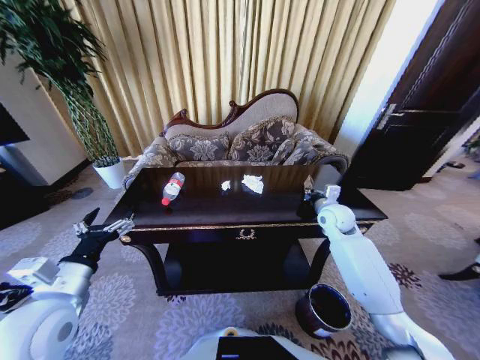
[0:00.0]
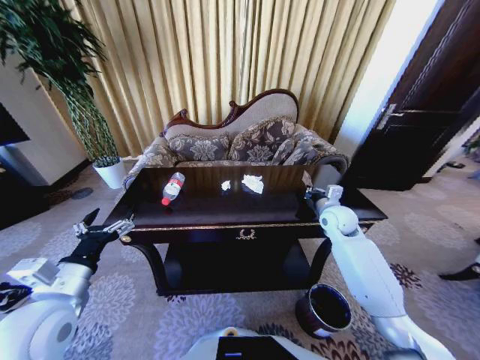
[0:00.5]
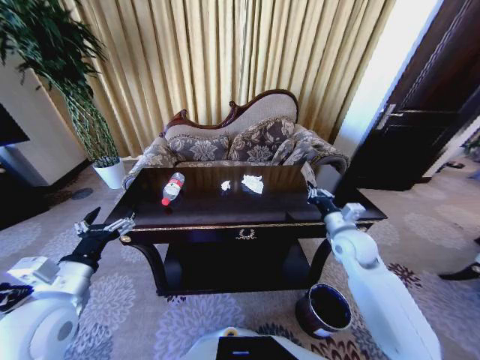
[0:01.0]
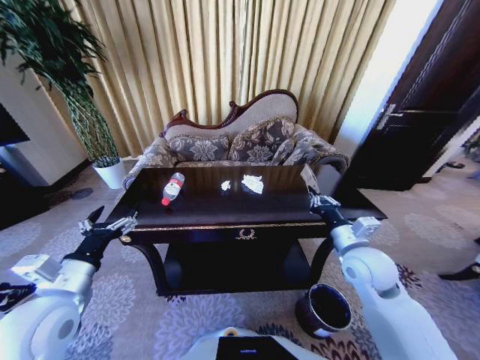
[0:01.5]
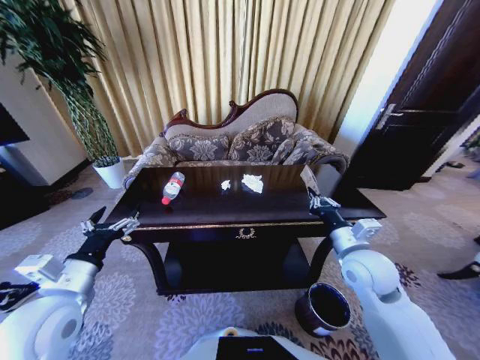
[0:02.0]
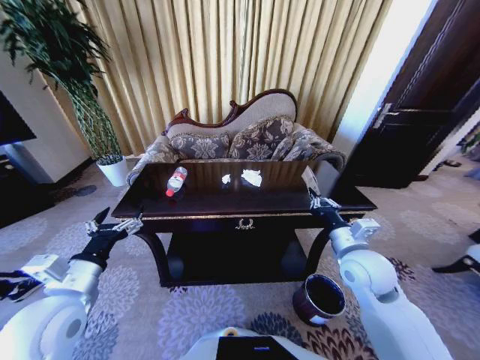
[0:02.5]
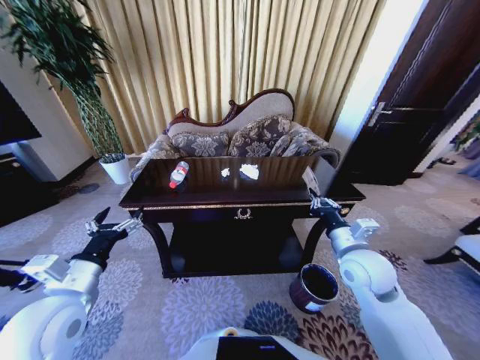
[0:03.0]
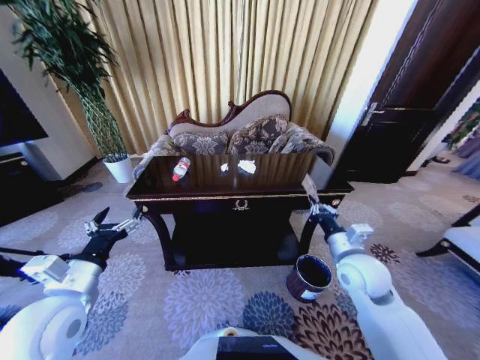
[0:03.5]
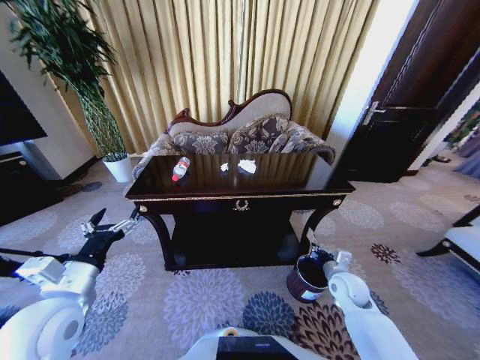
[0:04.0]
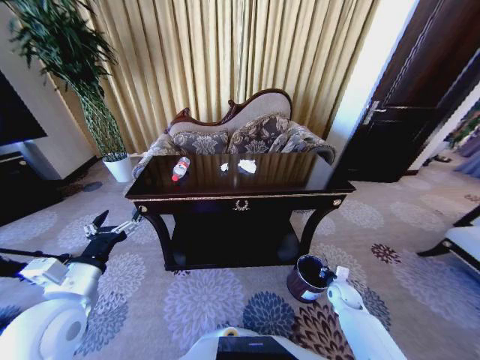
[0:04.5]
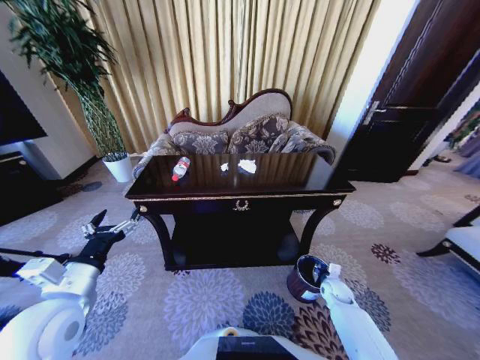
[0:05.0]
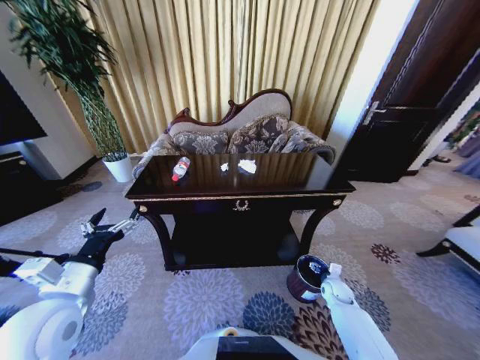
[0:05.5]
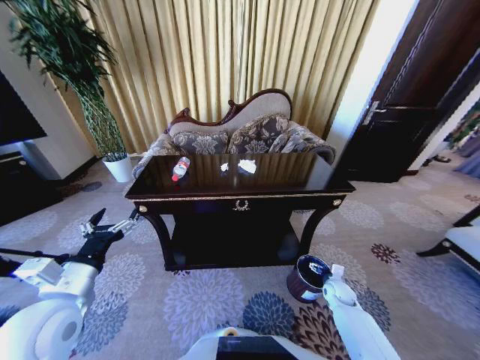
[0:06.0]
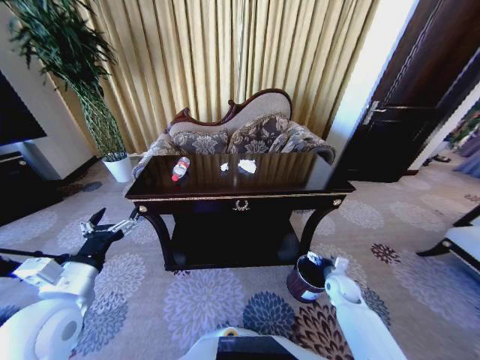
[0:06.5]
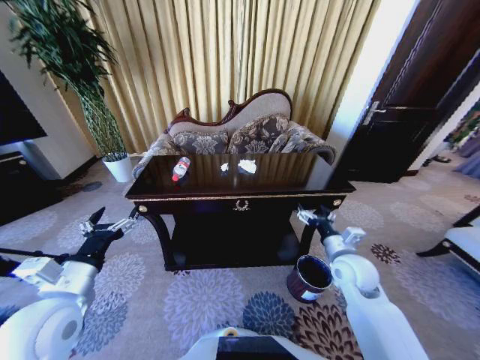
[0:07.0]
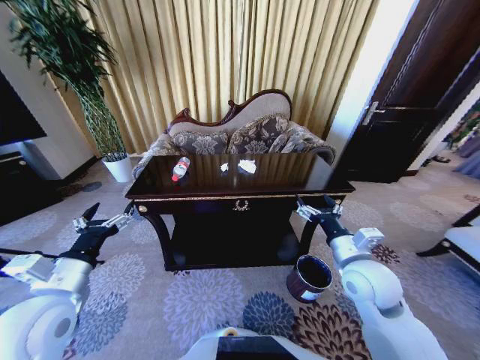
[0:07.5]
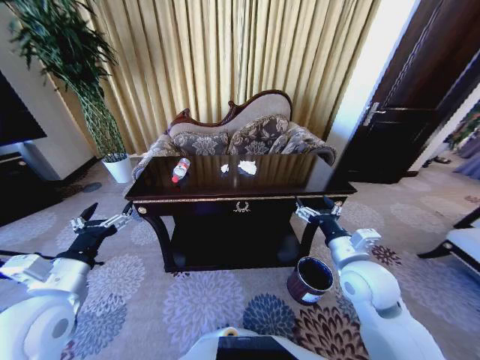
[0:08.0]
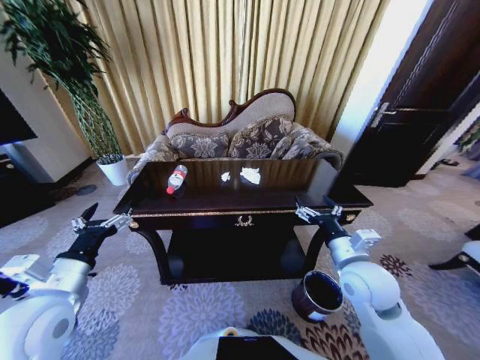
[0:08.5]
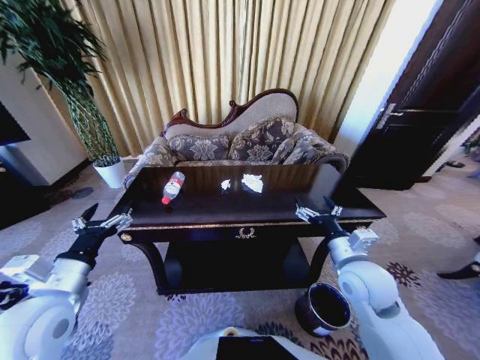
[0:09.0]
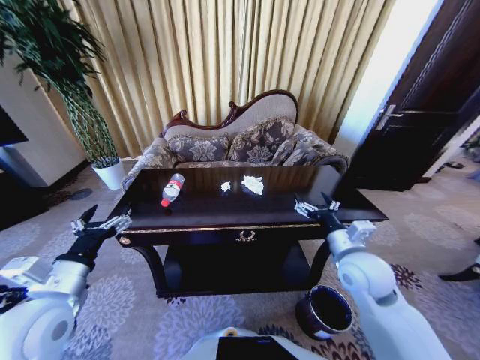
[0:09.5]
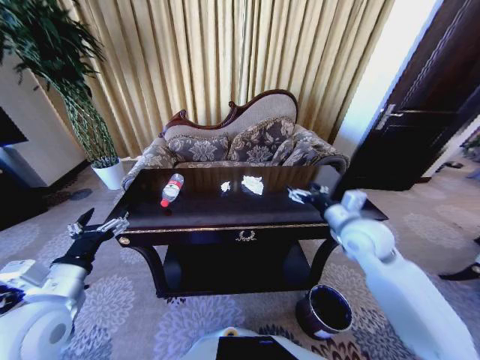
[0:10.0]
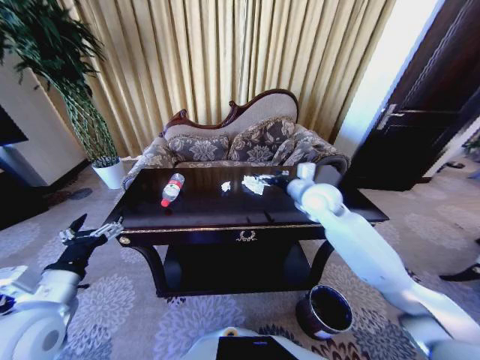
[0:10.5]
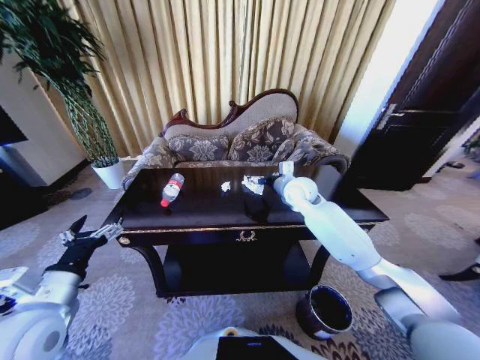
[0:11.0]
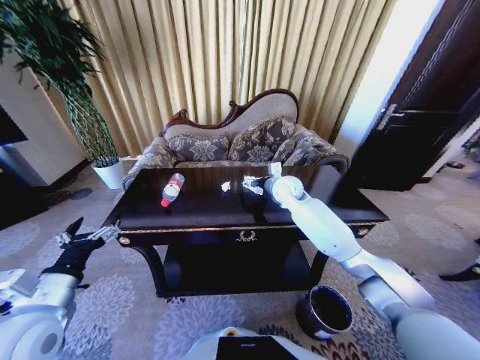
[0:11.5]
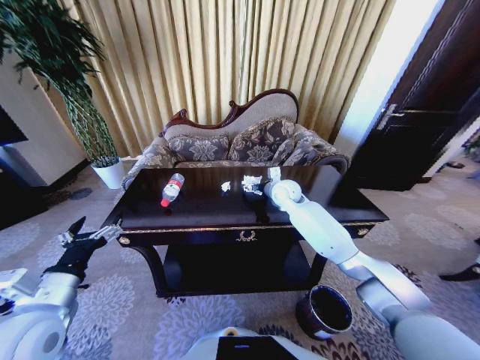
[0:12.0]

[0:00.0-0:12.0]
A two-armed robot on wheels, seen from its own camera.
Task of the whole recording: Move to the front of the table and place the trash on the table into the trash bin.
0:00.0 to 0:02.0: The right gripper heads backward, covering roughly 20 cm.
0:02.0 to 0:04.0: The right gripper goes some 20 cm downward.
0:04.0 to 0:06.0: The right gripper goes about 15 cm downward, and opens.
0:06.0 to 0:08.0: The right gripper shifts about 30 cm upward.
0:08.0 to 0:10.0: The right gripper travels forward by approximately 10 cm.
0:10.0 to 0:12.0: The right gripper travels forward and to the left by some 25 cm.

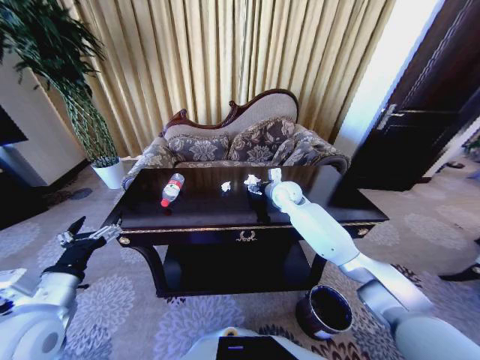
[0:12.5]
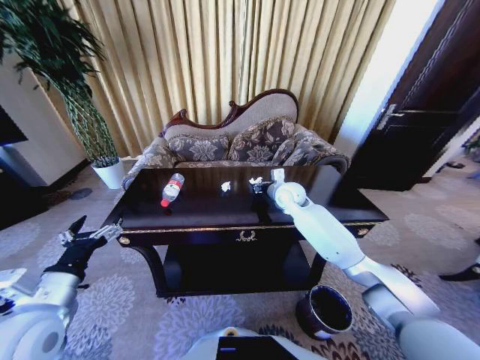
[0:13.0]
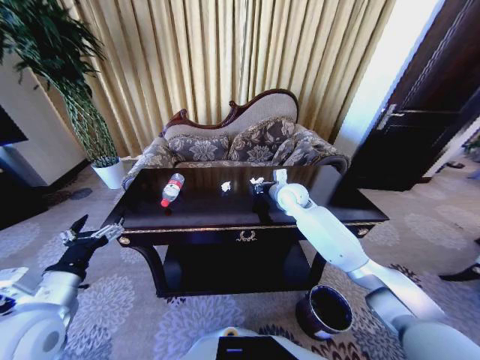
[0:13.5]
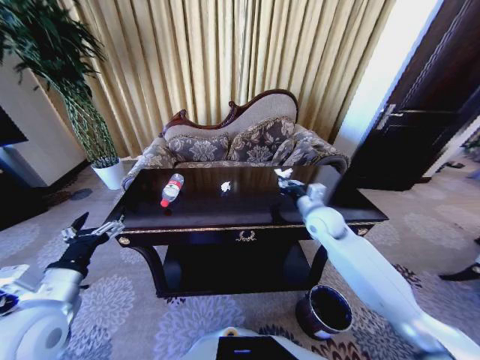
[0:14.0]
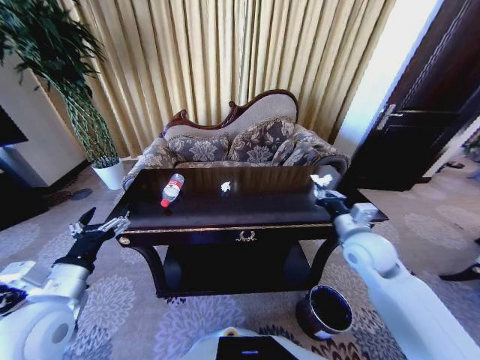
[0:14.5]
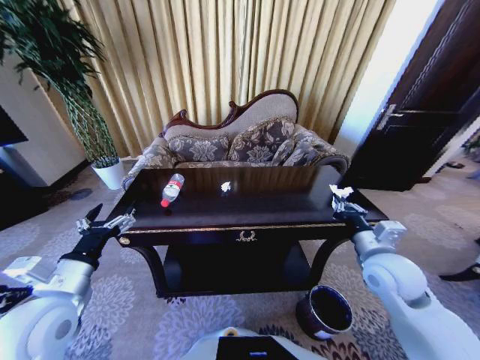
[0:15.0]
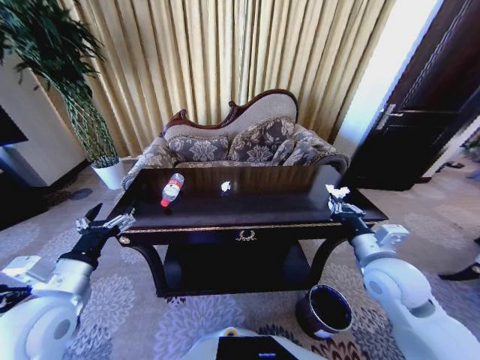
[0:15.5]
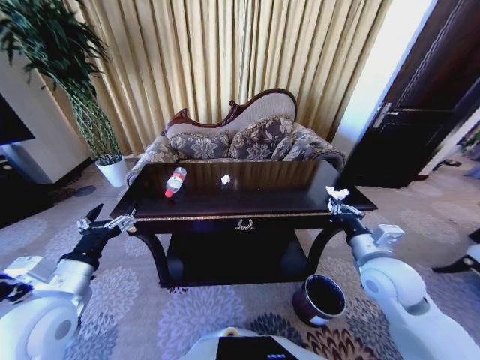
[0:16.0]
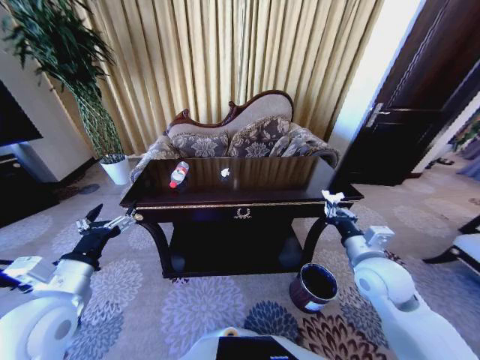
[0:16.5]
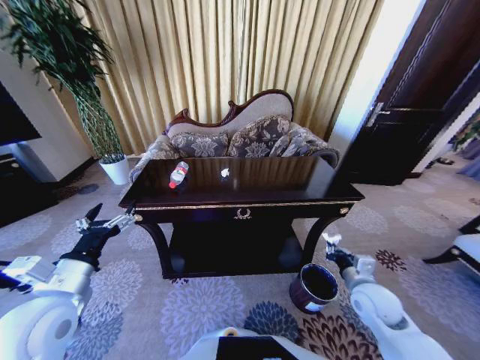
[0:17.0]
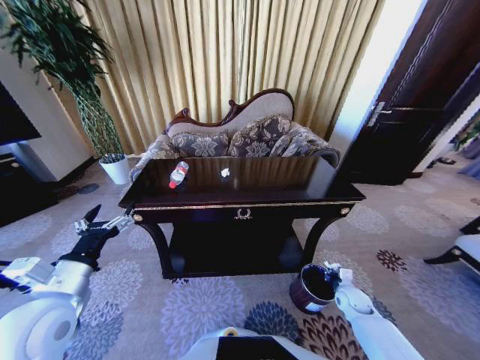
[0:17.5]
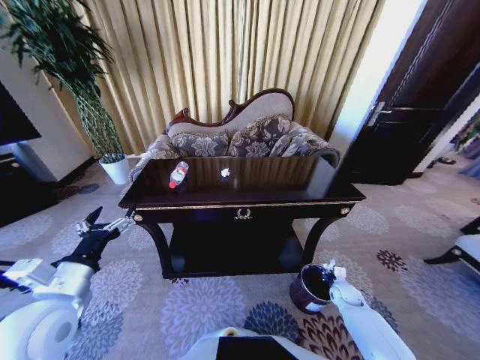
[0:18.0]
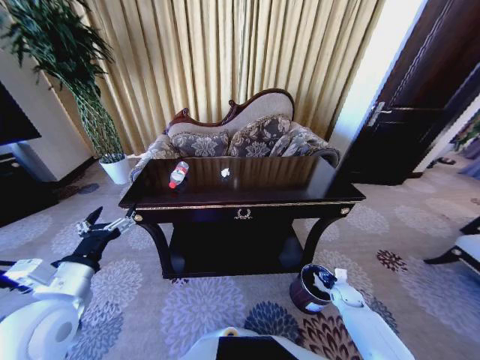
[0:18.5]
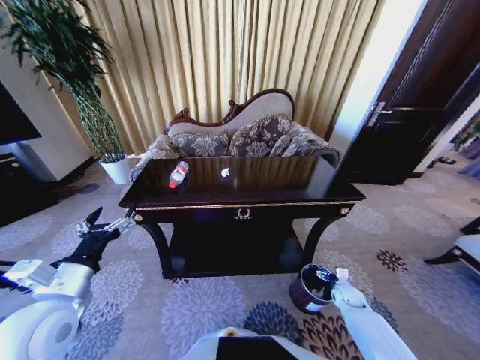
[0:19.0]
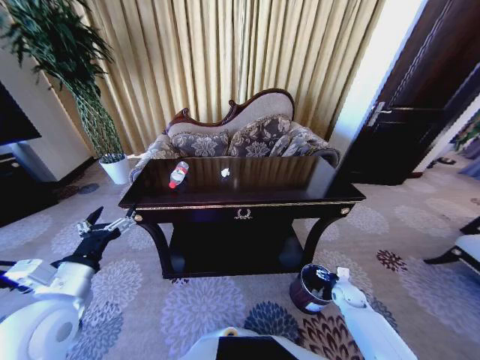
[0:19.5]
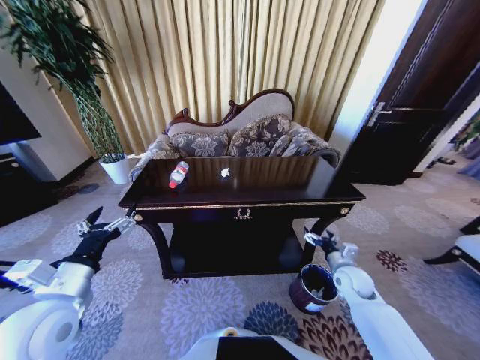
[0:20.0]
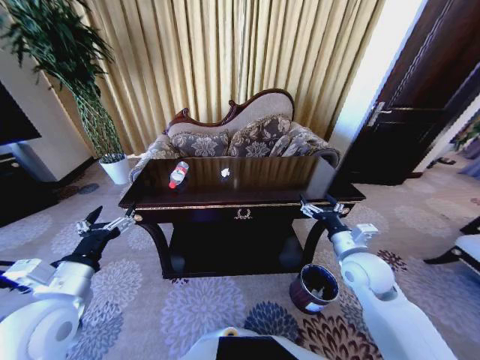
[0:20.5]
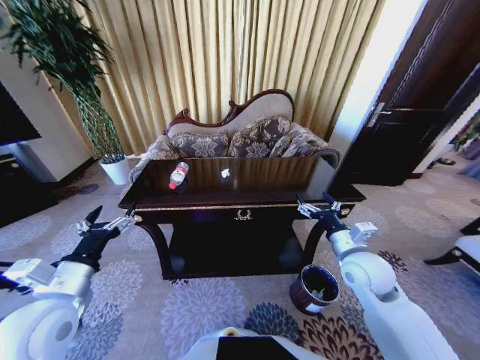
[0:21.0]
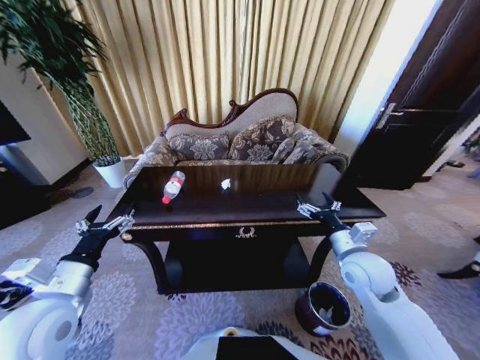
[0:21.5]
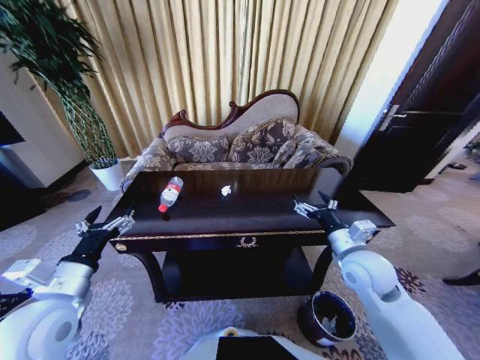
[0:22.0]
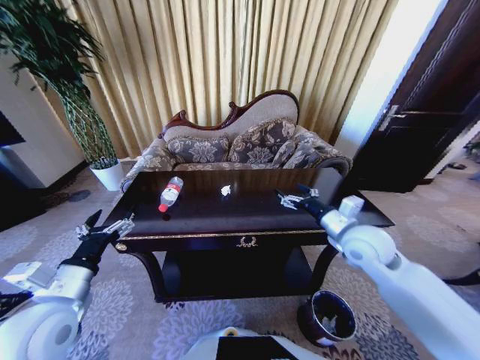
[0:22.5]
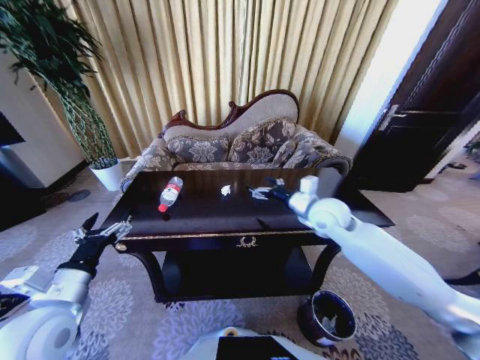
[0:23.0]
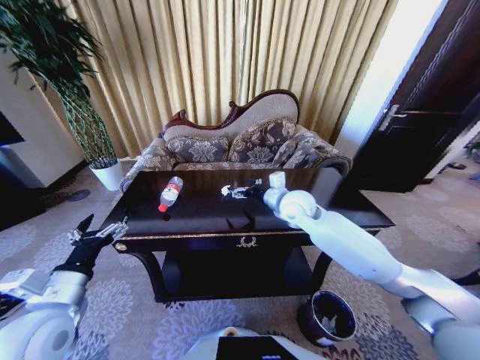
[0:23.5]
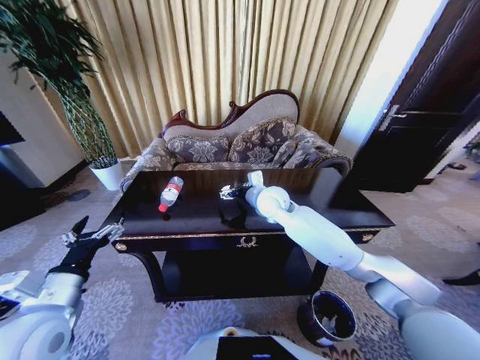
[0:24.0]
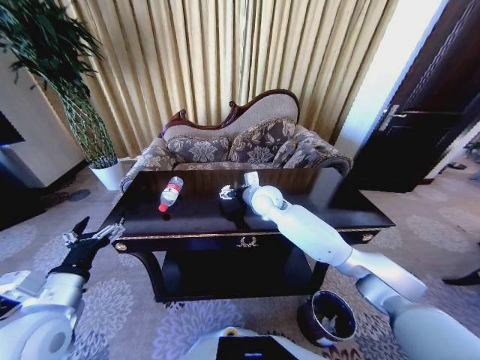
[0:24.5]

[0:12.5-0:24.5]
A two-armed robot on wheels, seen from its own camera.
Task of the whole recording: Move to the front of the table and place the trash on the table into the trash bin.
0:12.5 to 0:14.5: The right gripper moves backward and to the right, about 25 cm, and closes.
0:14.5 to 0:16.5: The right gripper travels backward by about 5 cm.
0:16.5 to 0:18.5: The right gripper shifts approximately 30 cm downward, and opens up.
0:18.5 to 0:20.5: The right gripper goes about 30 cm upward and to the left.
0:20.5 to 0:22.5: The right gripper moves upward, about 5 cm.
0:22.5 to 0:24.5: The right gripper heads to the left and forward, covering roughly 25 cm.

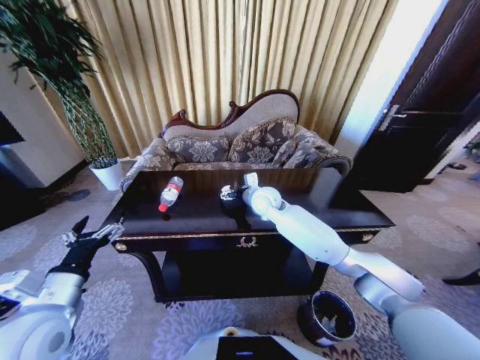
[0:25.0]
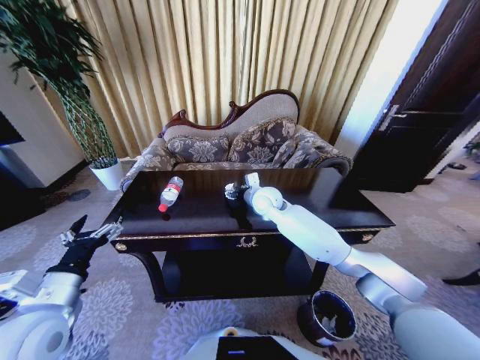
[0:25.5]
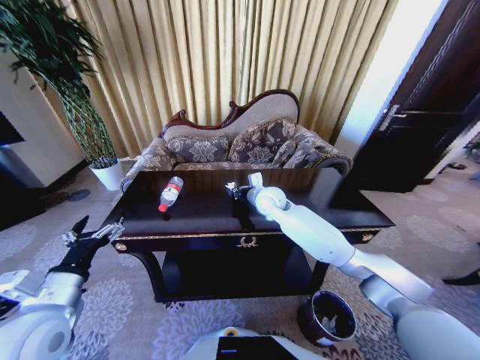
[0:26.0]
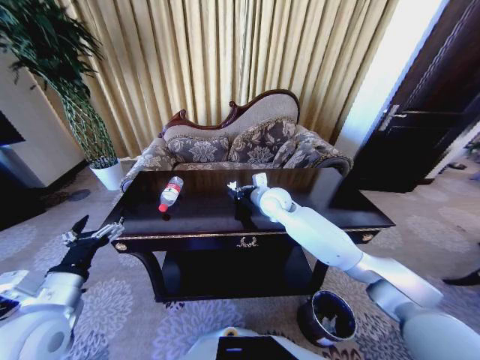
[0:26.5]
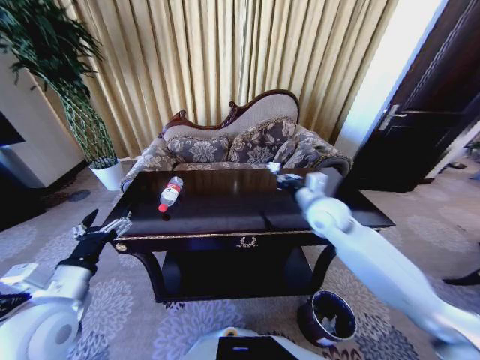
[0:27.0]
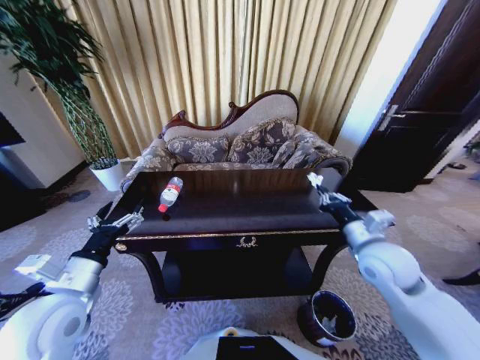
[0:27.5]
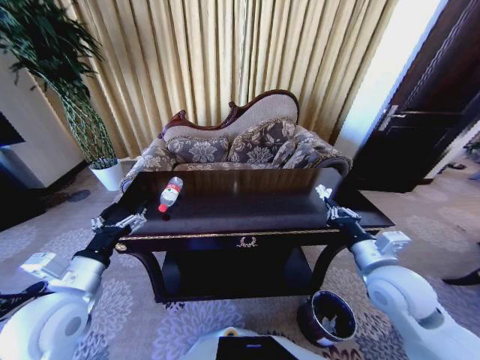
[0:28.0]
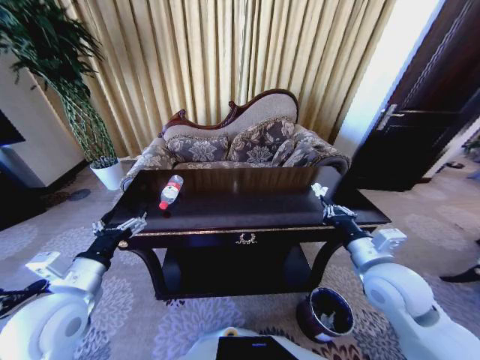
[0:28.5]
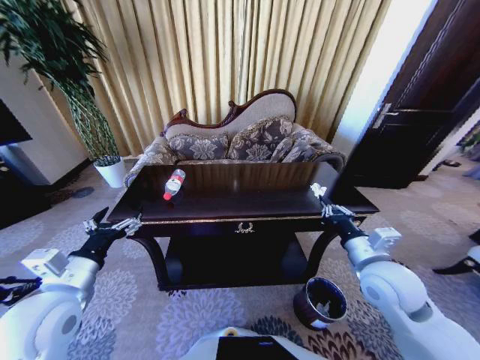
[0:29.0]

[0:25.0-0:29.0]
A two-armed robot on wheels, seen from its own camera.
Task of the whole recording: Move to the front of the table and place the trash on the table into the trash bin.
0:25.0 to 0:27.0: The right gripper heads to the right and backward, covering roughly 20 cm, and closes up.
0:27.0 to 0:29.0: The right gripper moves backward, approximately 15 cm.
